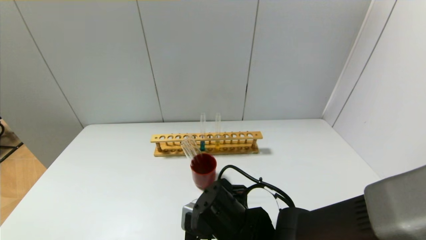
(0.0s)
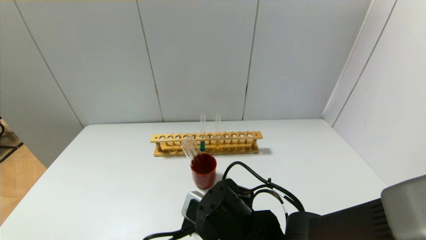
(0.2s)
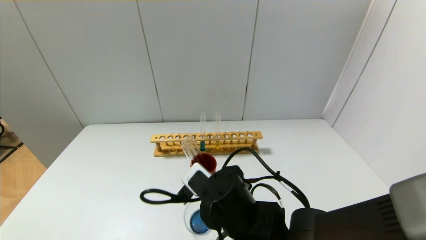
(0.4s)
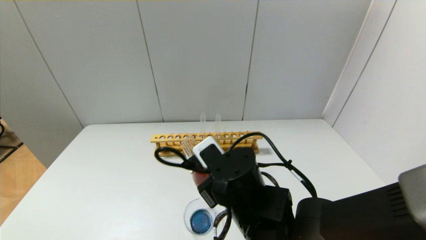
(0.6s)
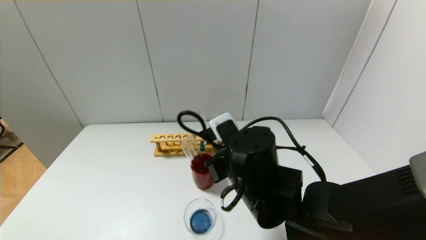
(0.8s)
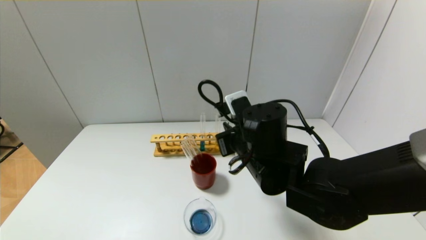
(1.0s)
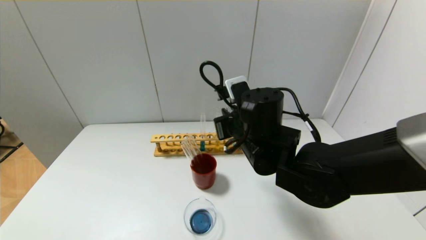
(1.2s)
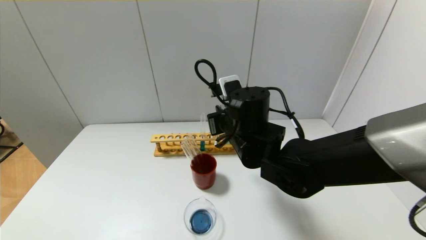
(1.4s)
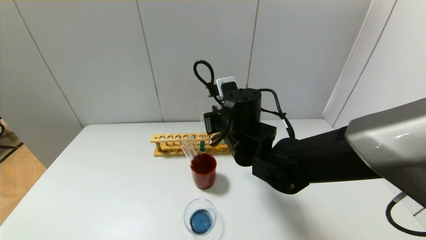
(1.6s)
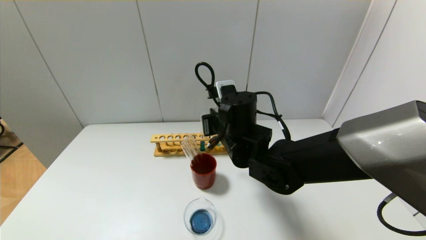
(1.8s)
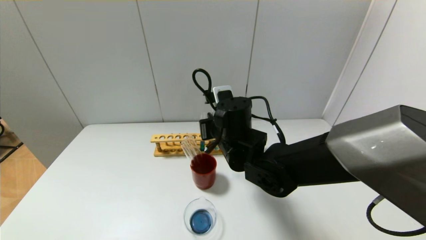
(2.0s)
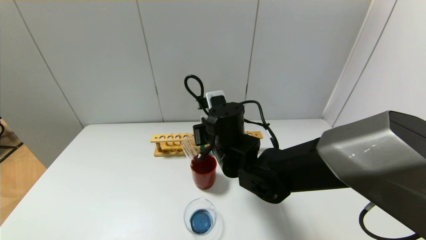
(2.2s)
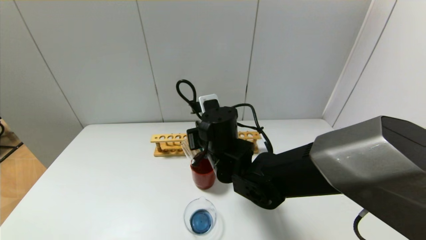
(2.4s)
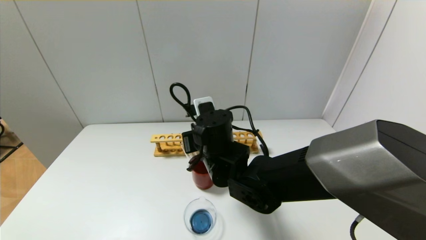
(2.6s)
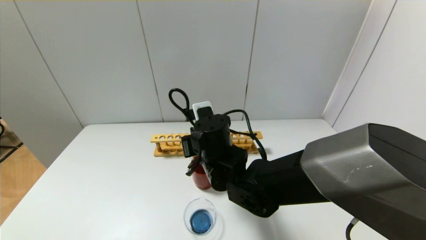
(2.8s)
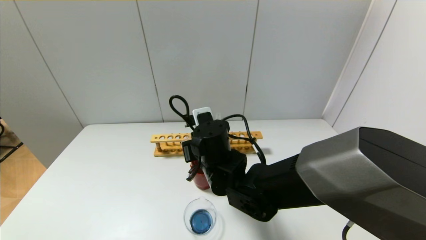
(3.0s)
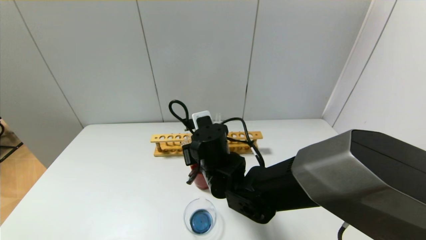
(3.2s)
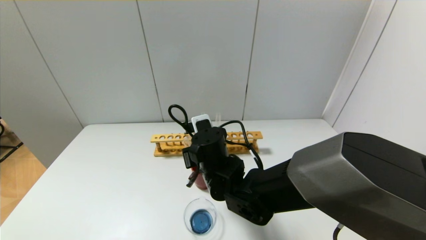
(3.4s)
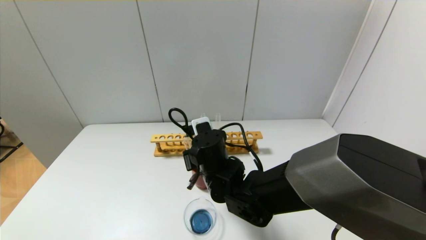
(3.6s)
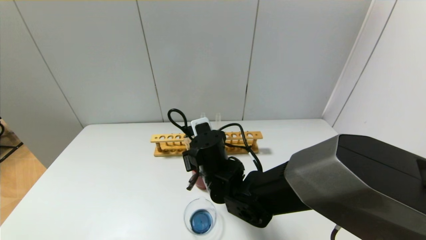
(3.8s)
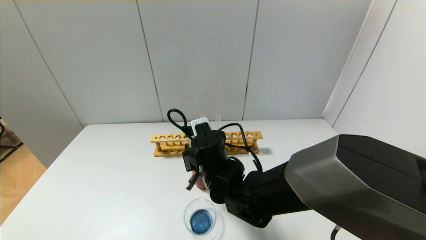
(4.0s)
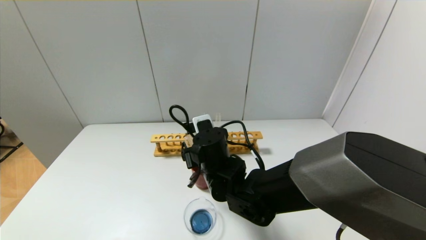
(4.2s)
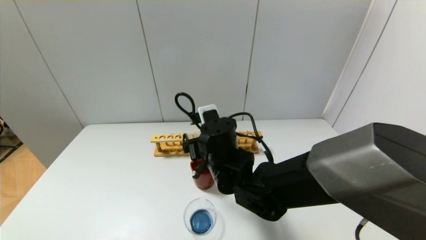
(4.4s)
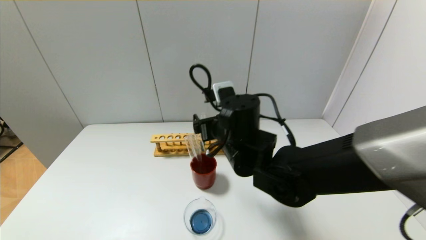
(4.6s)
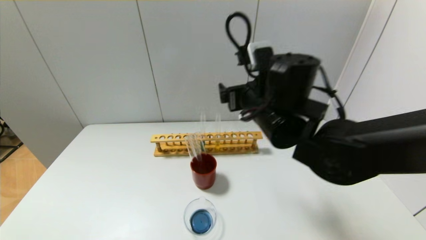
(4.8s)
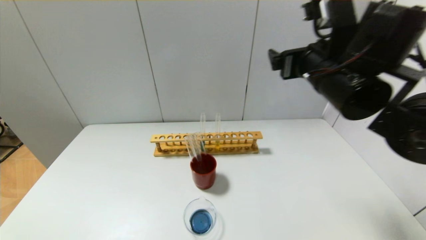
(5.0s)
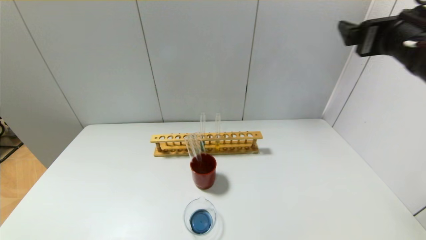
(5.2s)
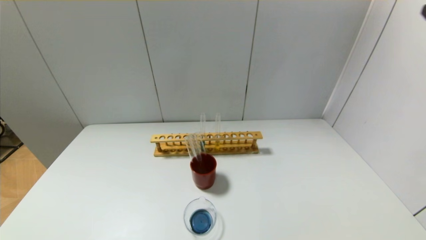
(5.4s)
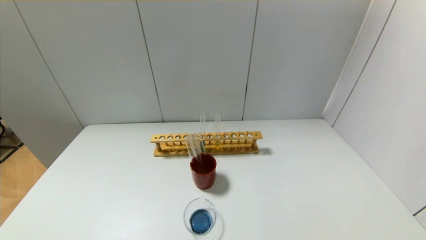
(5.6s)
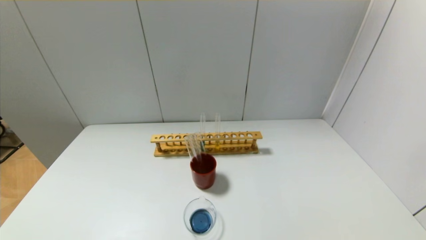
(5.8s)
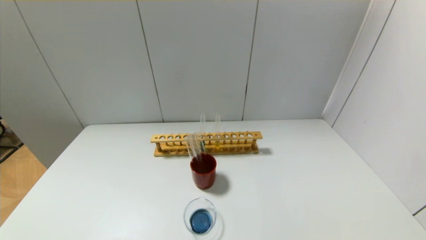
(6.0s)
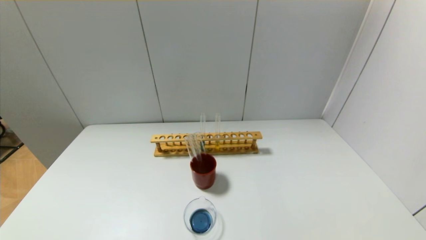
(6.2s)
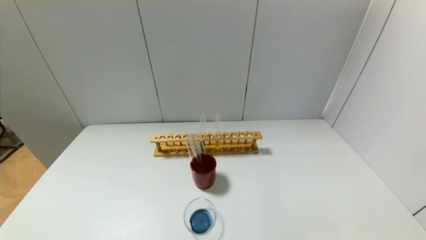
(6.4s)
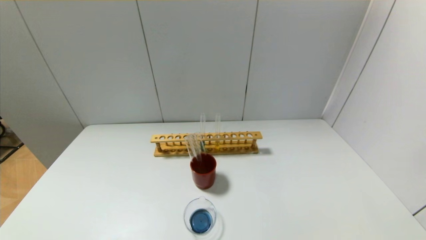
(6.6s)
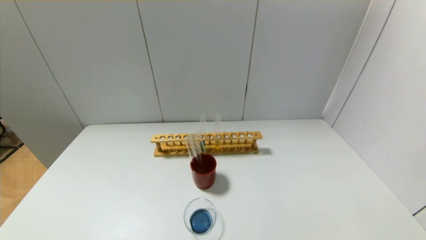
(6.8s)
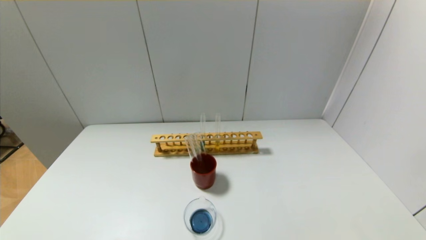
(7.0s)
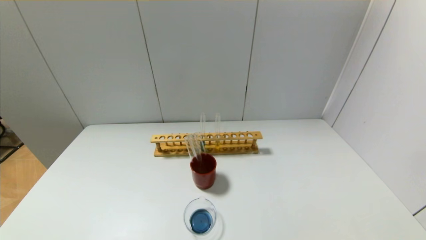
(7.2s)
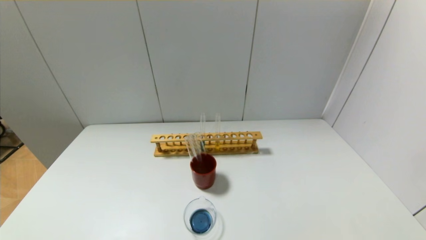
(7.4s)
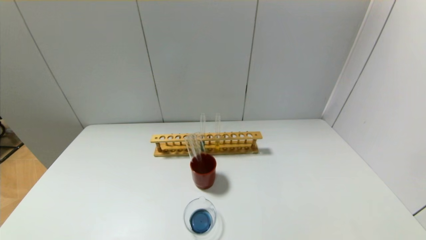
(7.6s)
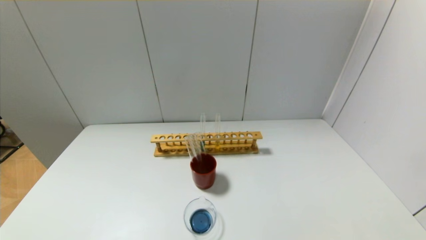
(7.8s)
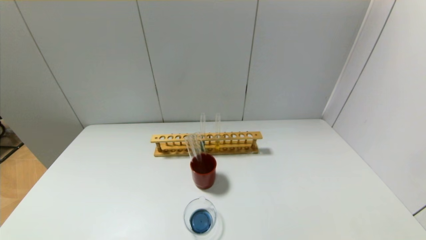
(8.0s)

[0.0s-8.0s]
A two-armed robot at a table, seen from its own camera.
Step, 0.0s to 4.2s: Place the test tube into the brown cup with the right gripper.
0.0s to 1.6s: The right gripper moves forward and upward, roughly 15 cm.
1.6s to 3.2s: The right gripper moves downward, roughly 5 cm.
3.2s to 4.8s: The right gripper shifts roughly 15 cm upward and to the right, and opens up.
4.8s to 6.4s: The right gripper is displaced backward and to the right by approximately 50 cm.

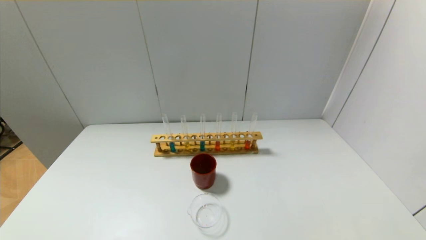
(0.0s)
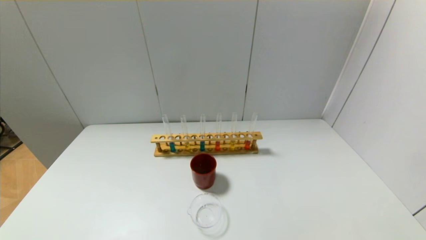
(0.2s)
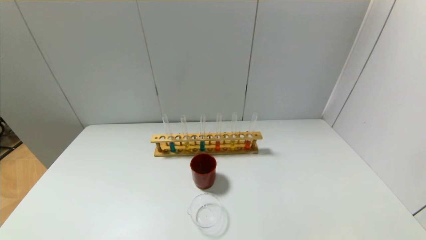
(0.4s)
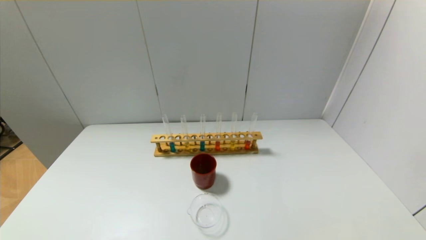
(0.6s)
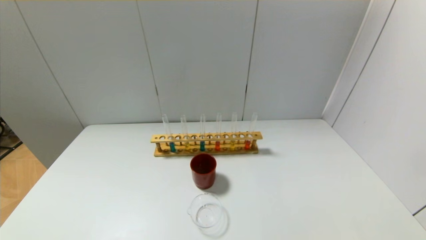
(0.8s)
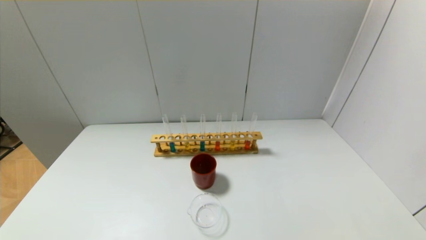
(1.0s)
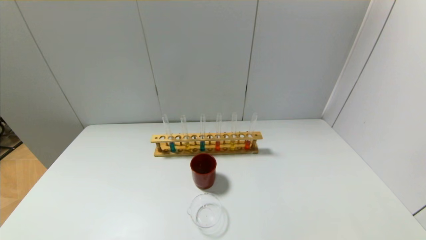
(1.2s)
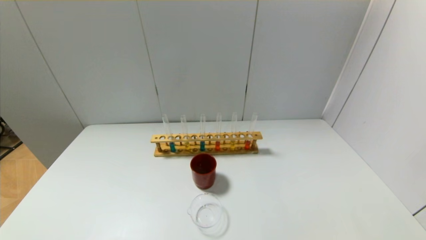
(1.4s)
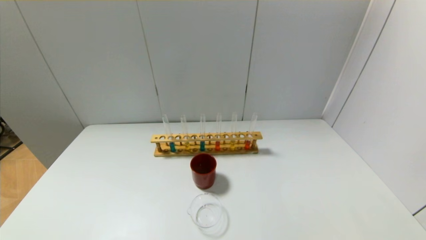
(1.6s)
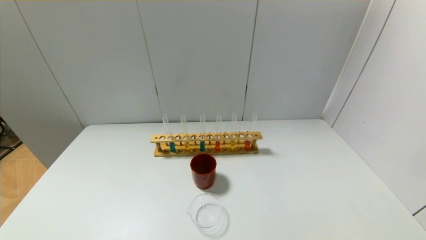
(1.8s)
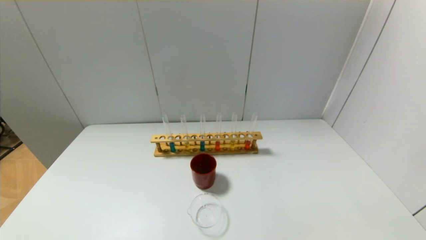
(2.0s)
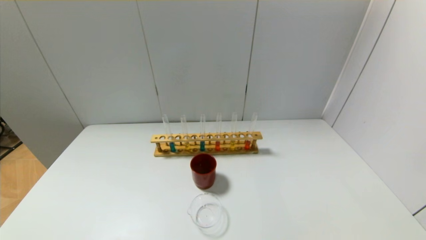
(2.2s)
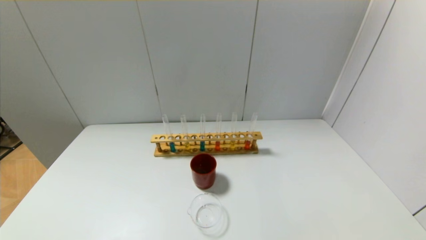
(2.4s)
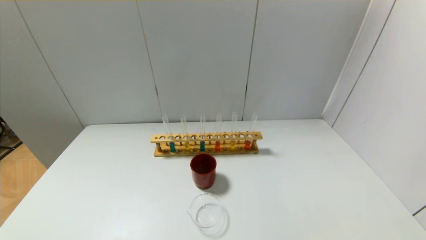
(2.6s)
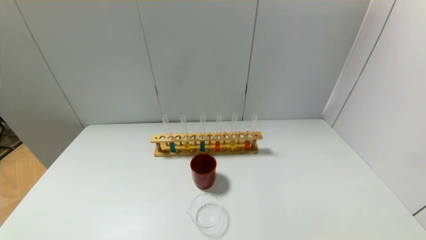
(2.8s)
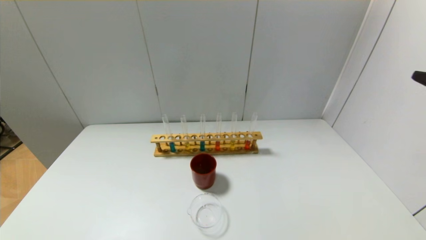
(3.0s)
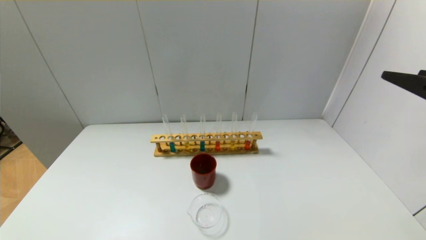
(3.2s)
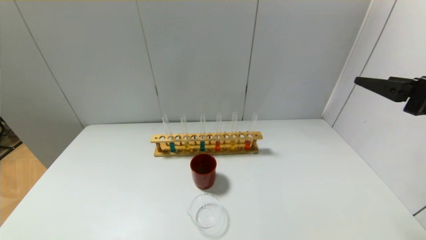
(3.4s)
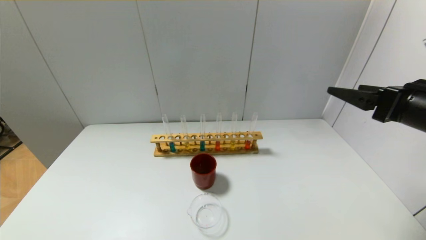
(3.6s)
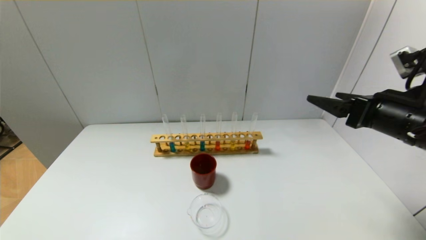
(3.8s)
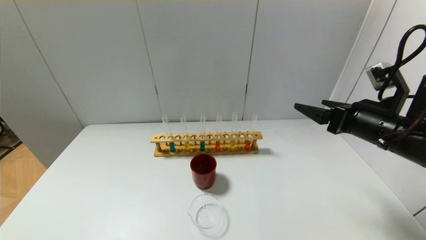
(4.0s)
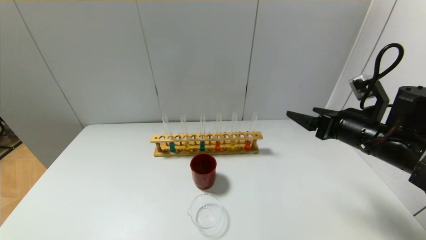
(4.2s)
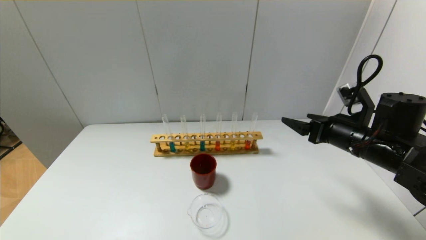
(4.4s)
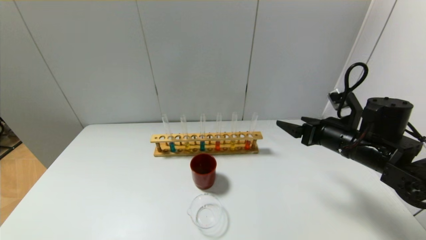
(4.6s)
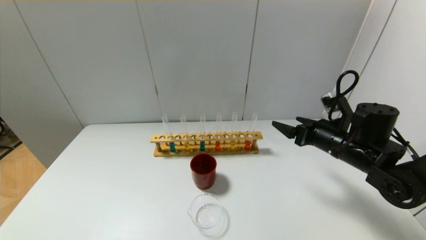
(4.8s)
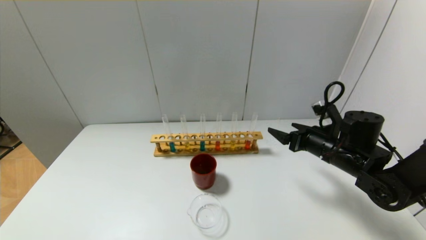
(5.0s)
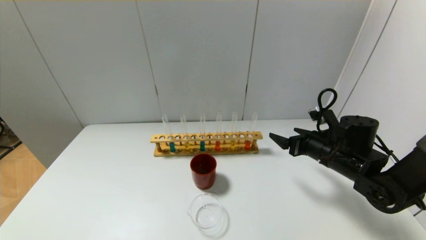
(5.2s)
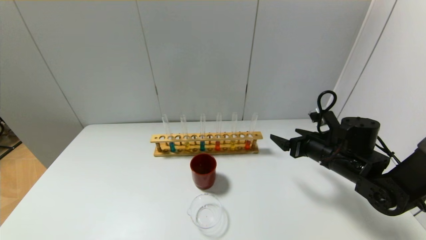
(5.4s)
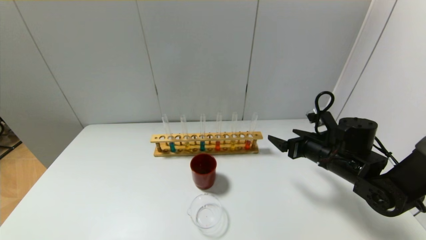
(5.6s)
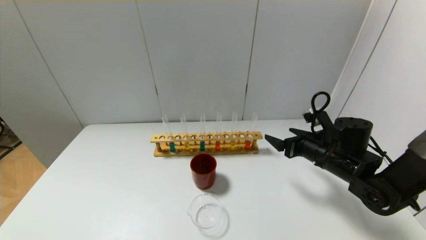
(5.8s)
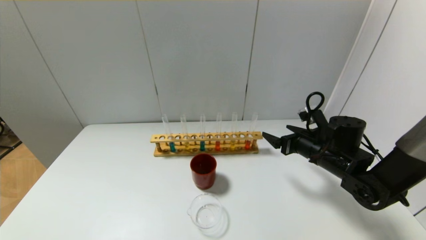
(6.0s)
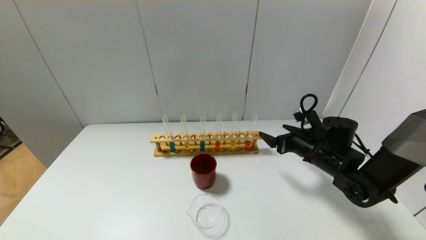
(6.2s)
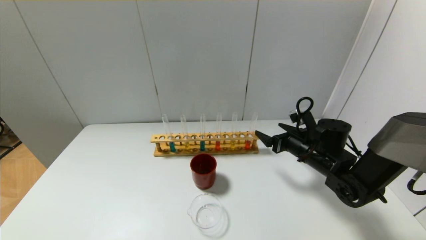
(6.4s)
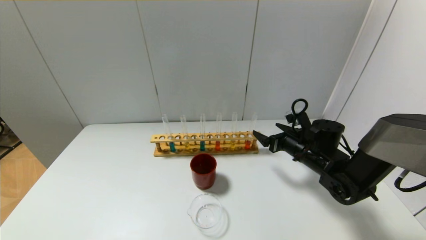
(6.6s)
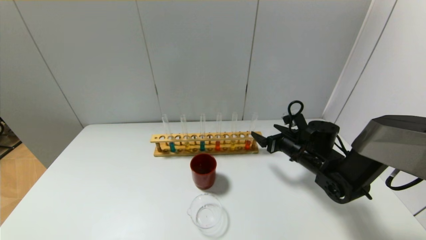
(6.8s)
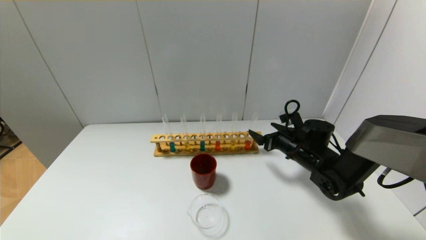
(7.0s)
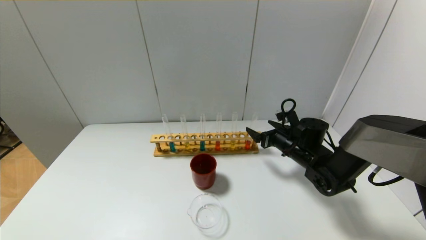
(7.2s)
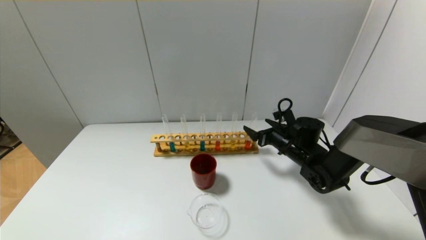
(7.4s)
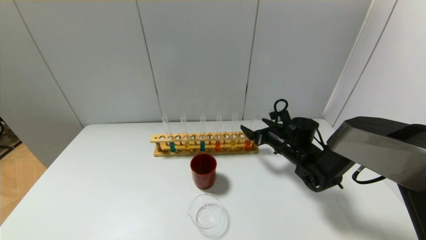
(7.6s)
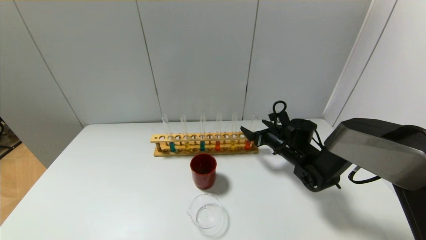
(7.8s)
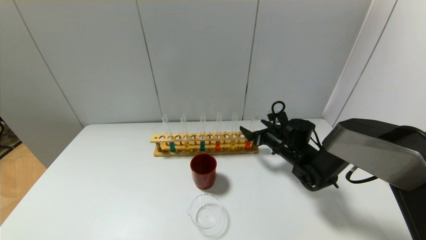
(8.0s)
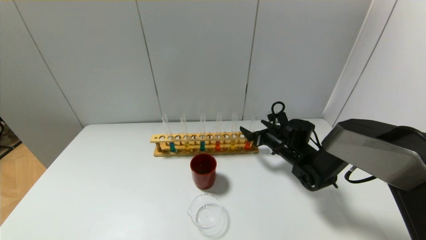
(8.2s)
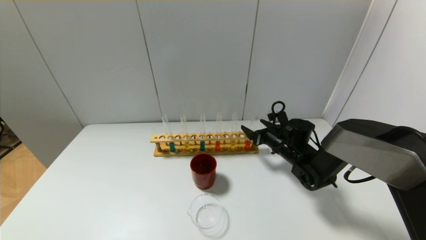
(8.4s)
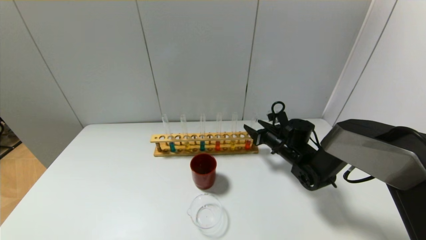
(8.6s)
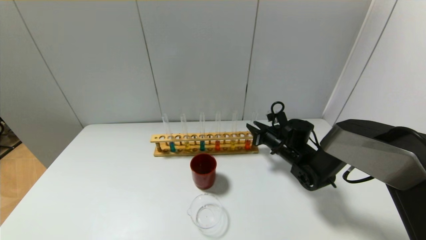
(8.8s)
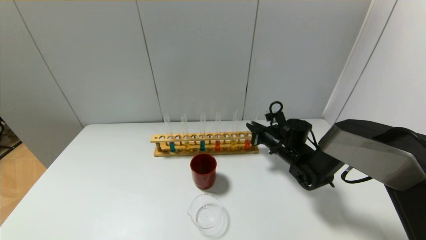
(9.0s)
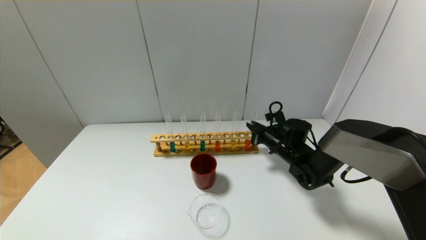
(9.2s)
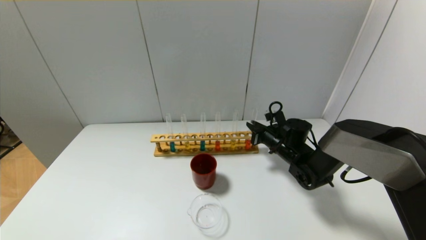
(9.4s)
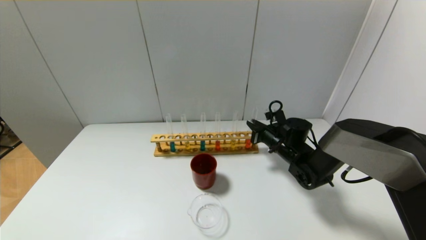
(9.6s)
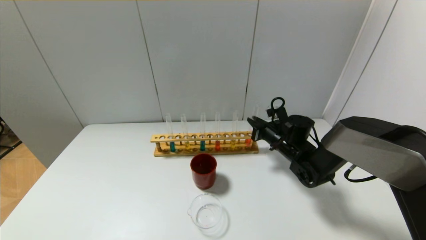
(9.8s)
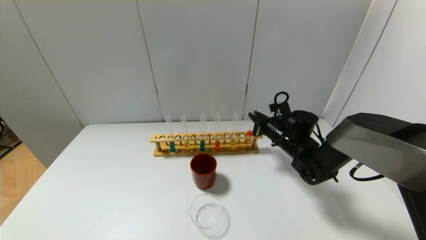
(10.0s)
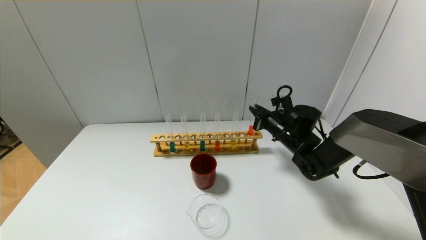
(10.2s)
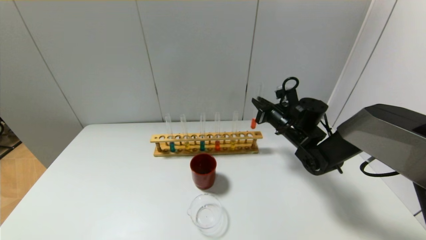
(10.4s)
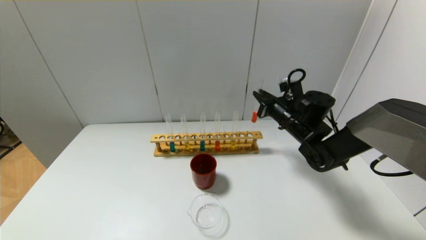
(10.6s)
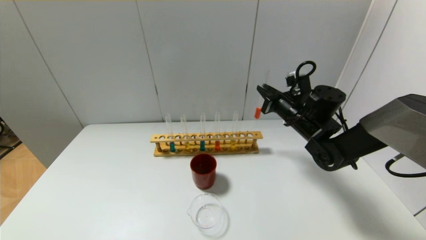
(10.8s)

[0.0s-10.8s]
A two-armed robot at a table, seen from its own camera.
Step, 0.0s to 9.4s: Grasp the red reagent with the right gripper.
3.0s to 4.6s: The right gripper travels forward, downward and to the left by roughly 25 cm.
4.6s to 6.2s: The right gripper heads downward, covering some 5 cm.
6.2s to 7.8s: The right gripper moves forward, about 5 cm.
7.8s to 9.2s: The right gripper closes its fingers.
9.2s to 10.8s: The right gripper heads upward, covering roughly 10 cm.
